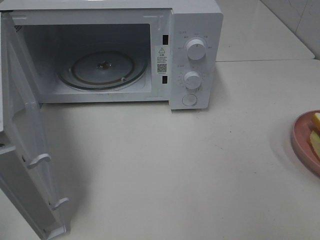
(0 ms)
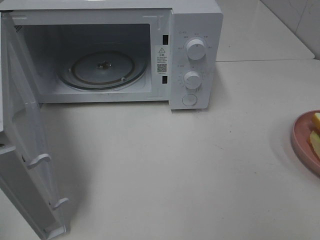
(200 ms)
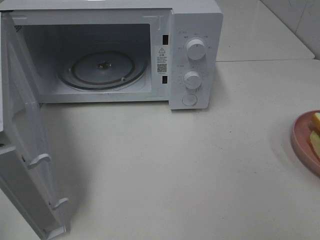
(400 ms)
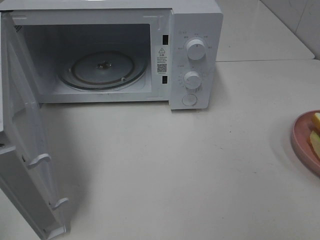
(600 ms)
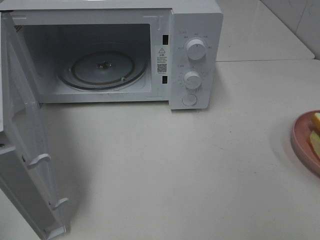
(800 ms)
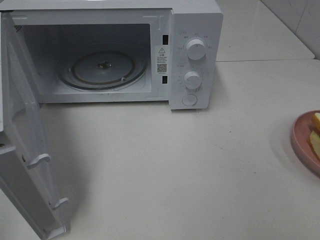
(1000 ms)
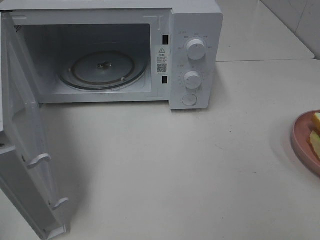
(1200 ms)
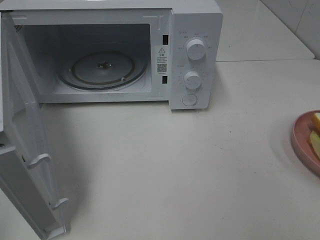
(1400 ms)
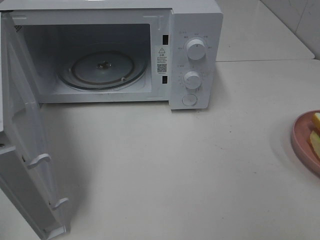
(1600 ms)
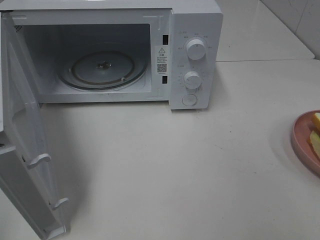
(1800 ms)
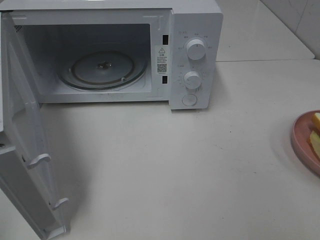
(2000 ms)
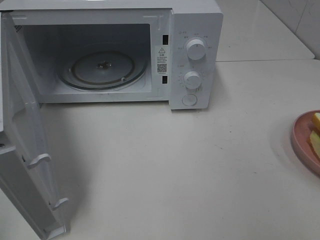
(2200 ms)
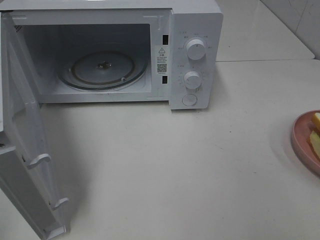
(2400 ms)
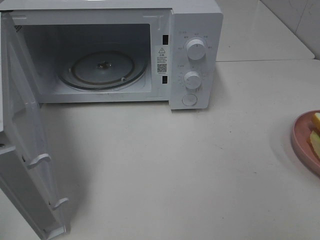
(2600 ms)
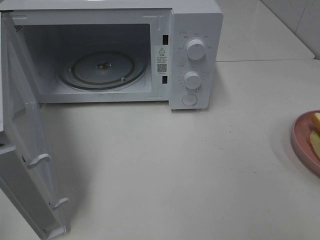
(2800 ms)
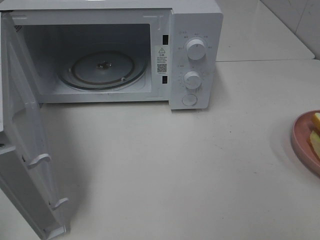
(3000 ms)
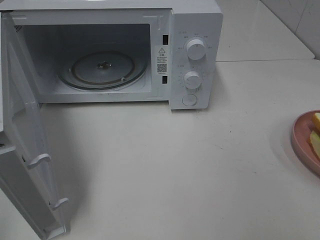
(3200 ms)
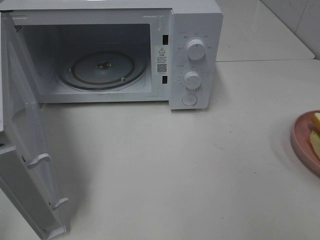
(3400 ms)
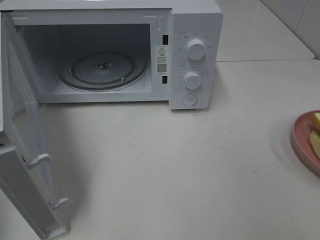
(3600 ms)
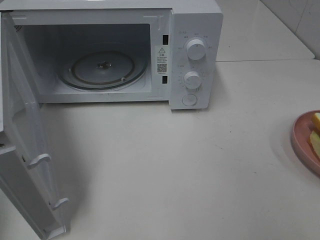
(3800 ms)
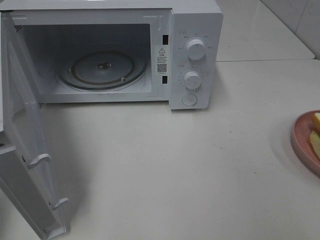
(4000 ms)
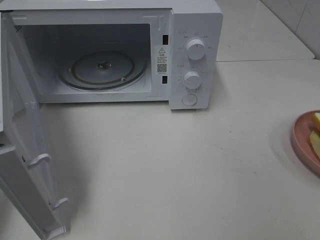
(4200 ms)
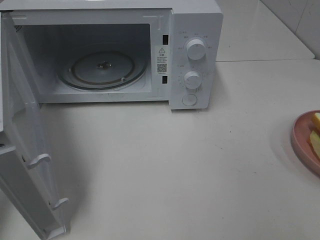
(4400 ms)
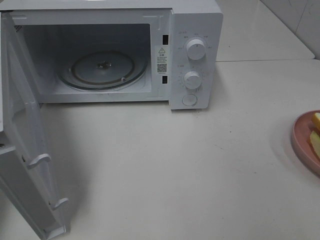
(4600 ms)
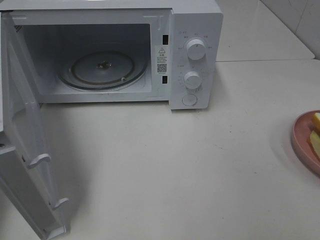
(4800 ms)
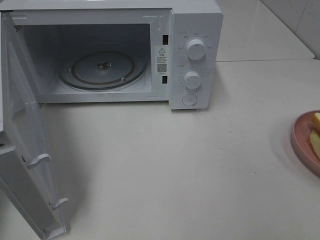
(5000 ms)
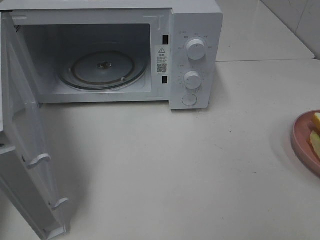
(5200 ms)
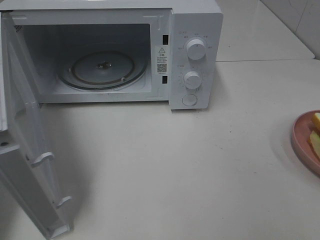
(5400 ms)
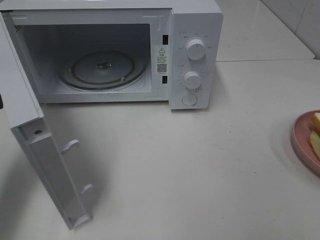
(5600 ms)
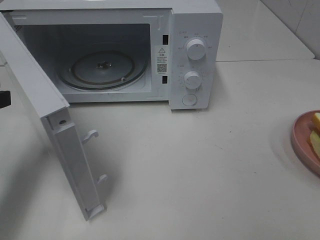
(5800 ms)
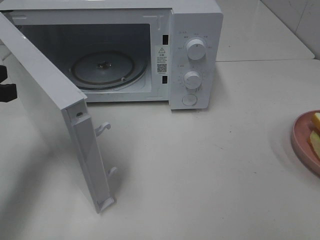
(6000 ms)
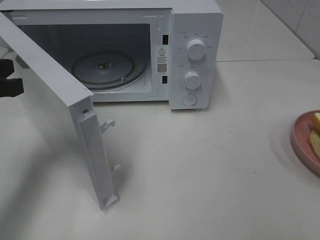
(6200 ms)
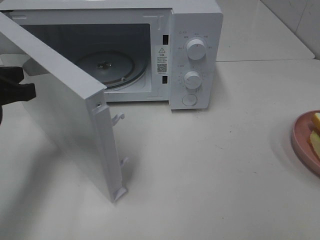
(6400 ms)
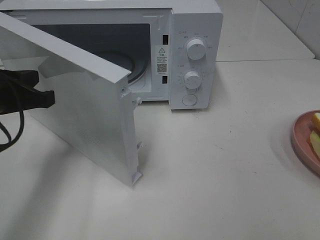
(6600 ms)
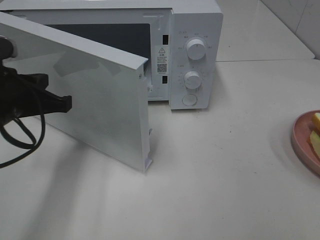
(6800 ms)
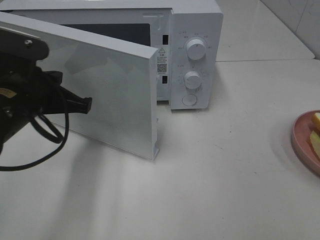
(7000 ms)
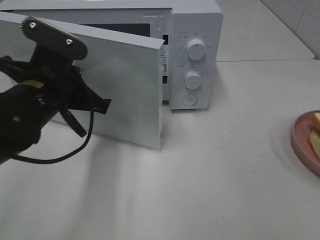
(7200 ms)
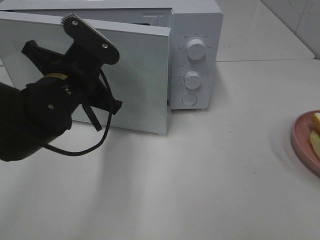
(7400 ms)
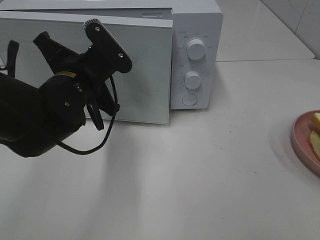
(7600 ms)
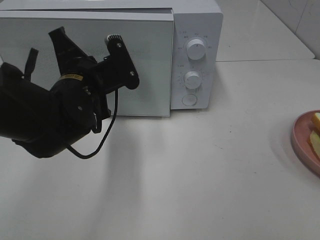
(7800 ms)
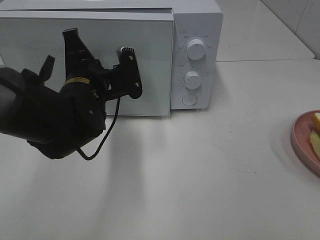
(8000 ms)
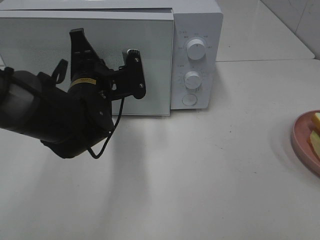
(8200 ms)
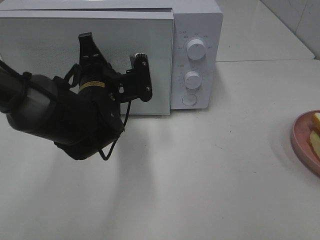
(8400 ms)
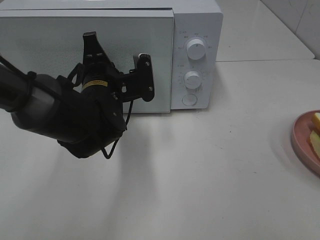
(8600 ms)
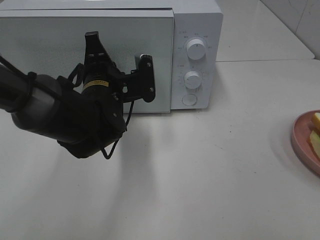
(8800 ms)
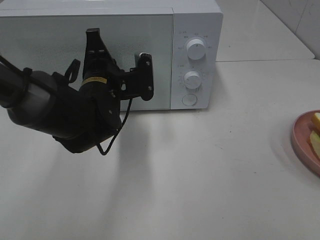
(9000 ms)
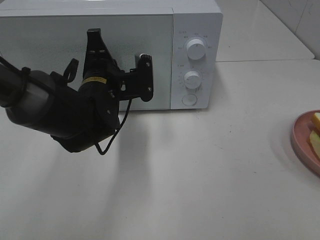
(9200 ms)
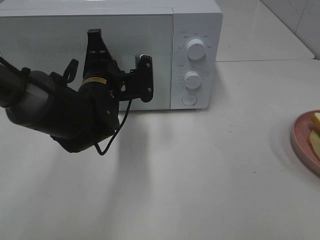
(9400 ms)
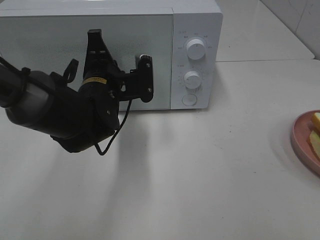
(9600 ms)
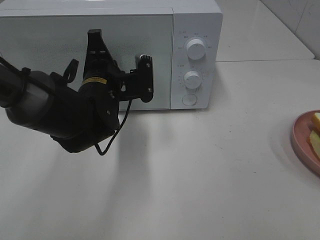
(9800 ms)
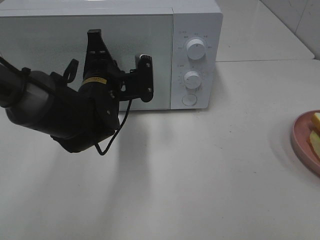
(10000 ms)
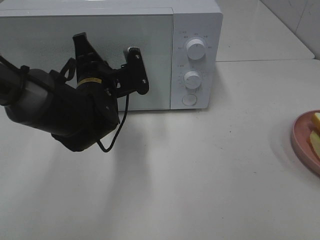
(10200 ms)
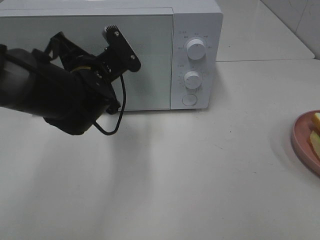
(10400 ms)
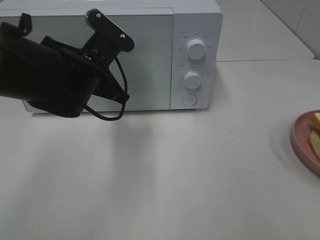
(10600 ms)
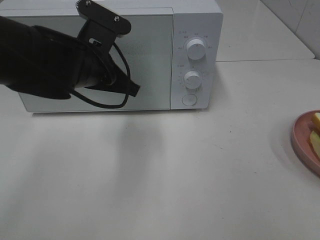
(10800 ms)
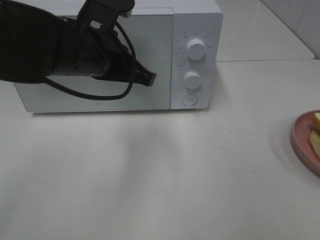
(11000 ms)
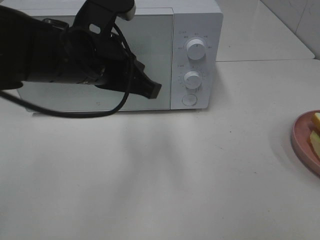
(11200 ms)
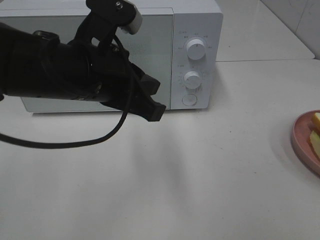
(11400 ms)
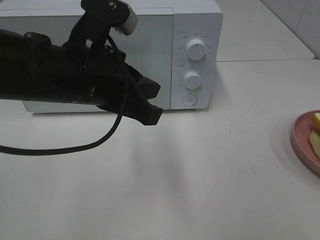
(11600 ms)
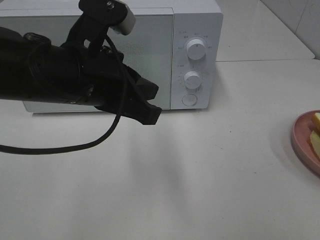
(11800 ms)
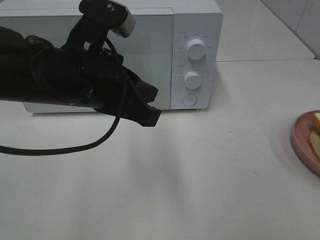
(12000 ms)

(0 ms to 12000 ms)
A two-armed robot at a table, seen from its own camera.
Task of the whole recording: Heat Sandwich.
Step, 0 ms - 11200 ms: Left hand: close the microwave door.
1600 ms - 3000 ms: Both grippers stay about where they are.
4400 ms - 6000 ms: The left gripper moves forward, to the right and downward, approximately 10 cm, and closes up.
6000 ms - 7600 ms: The left gripper goes about 15 cm to the right.
7600 ms - 9000 ms: The left gripper changes place by approximately 5 cm.
10400 ms - 12000 ms: The left gripper moves backward and upward, approximately 15 cm.

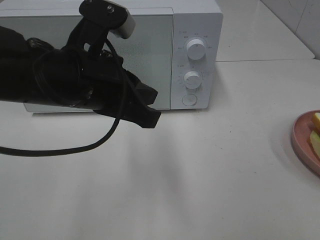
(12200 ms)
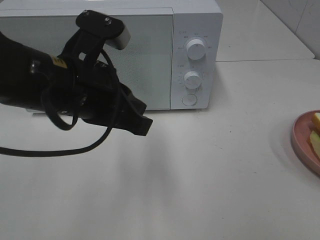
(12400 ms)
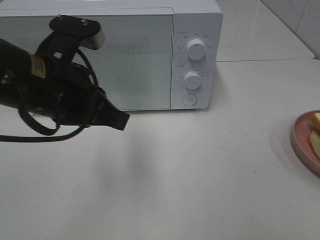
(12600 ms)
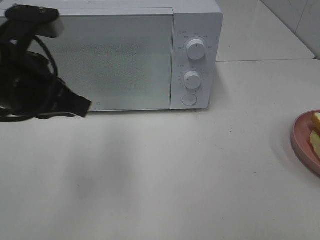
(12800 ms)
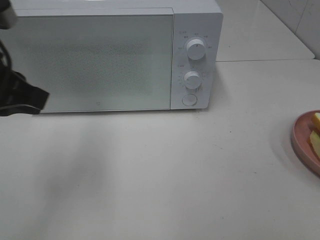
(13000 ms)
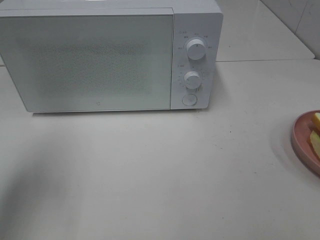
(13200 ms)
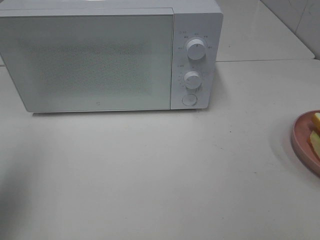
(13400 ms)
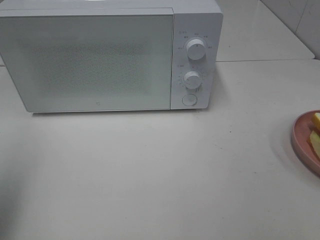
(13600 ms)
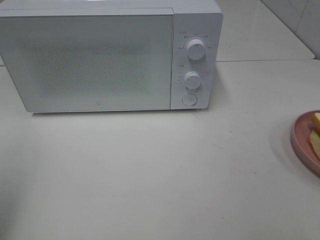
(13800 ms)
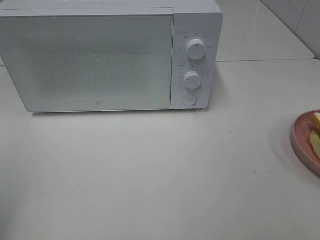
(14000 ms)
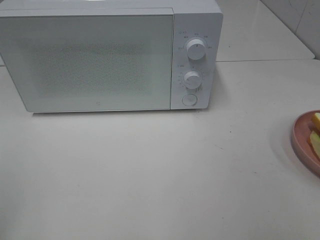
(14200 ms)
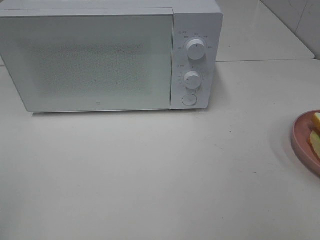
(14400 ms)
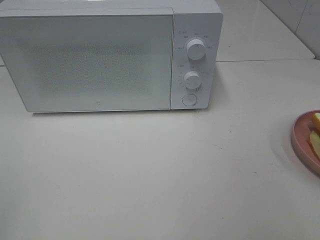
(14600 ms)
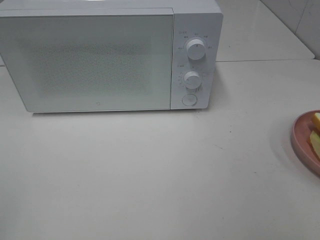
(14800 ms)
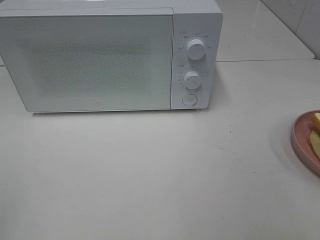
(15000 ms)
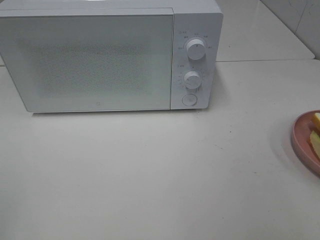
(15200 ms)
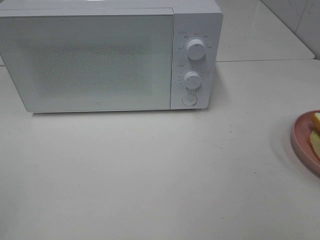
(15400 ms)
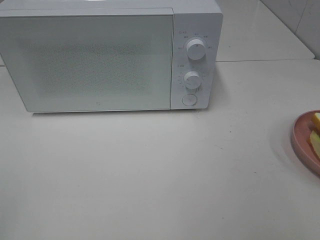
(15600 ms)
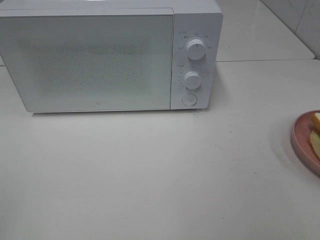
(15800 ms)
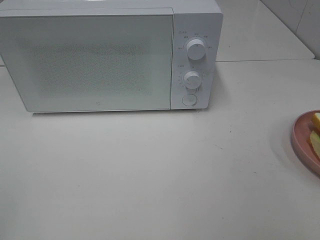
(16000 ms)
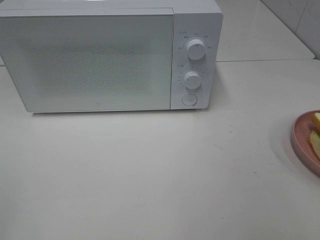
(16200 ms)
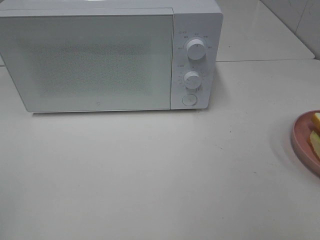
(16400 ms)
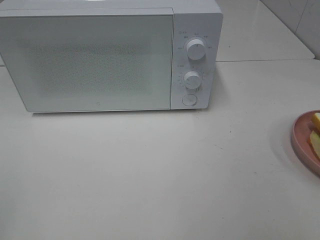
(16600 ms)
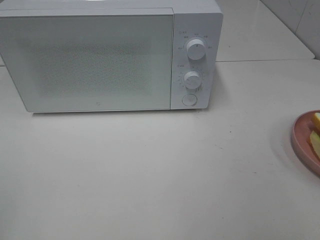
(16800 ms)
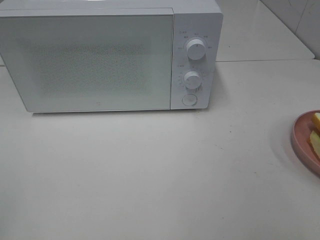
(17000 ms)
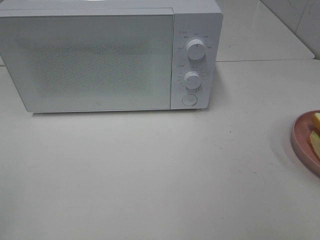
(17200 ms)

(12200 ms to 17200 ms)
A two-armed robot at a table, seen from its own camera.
Task of the whole recording: Heat Sandwich.
12200 ms - 13800 ms: The left gripper is displaced to the left and backward by roughly 25 cm, and opens.
13800 ms - 15600 ms: The left gripper moves backward, roughly 10 cm.
15600 ms - 17200 ms: The two grippers keep their place.
